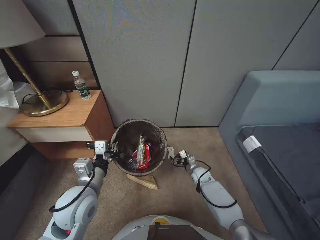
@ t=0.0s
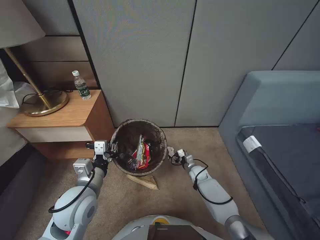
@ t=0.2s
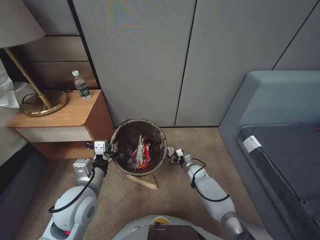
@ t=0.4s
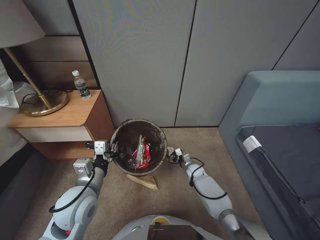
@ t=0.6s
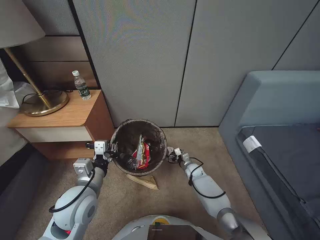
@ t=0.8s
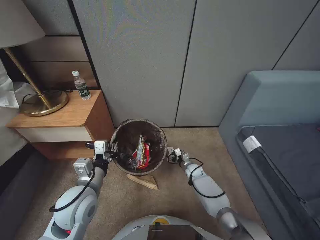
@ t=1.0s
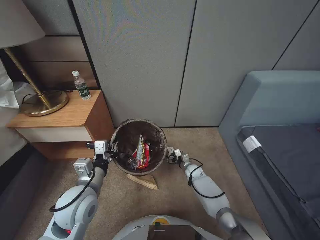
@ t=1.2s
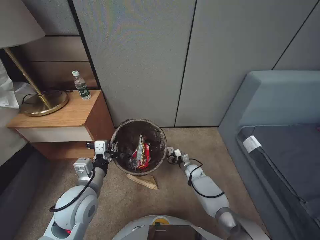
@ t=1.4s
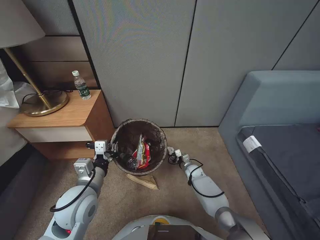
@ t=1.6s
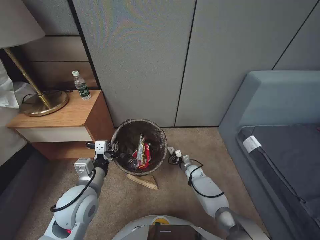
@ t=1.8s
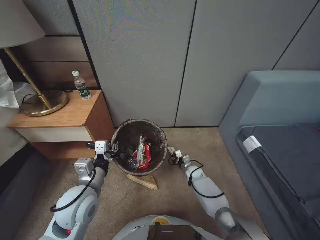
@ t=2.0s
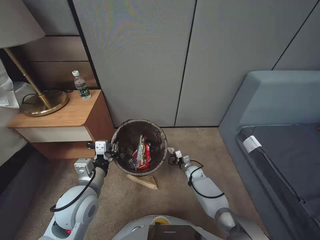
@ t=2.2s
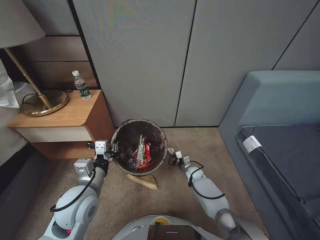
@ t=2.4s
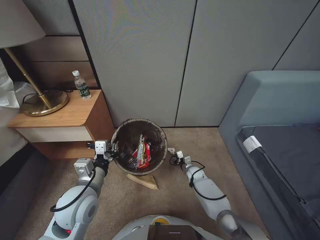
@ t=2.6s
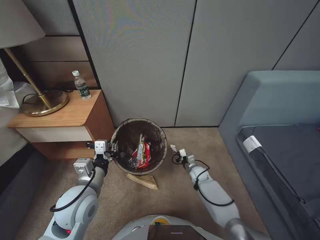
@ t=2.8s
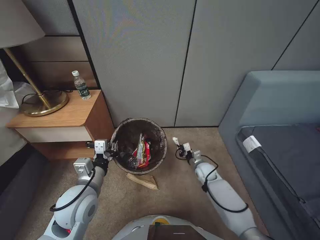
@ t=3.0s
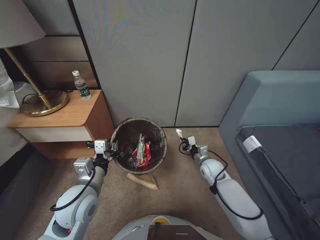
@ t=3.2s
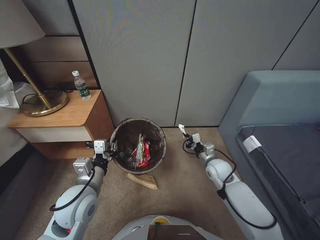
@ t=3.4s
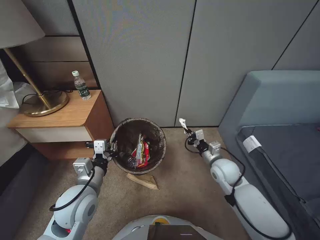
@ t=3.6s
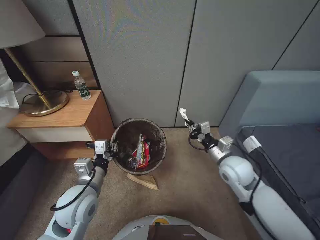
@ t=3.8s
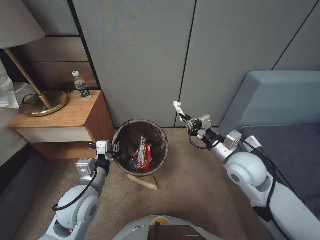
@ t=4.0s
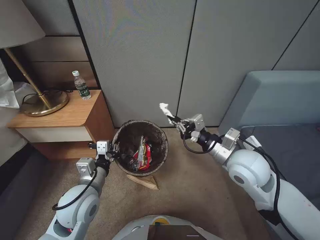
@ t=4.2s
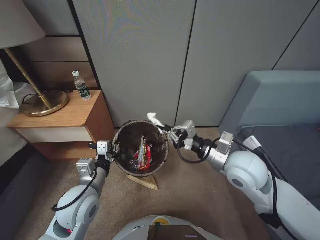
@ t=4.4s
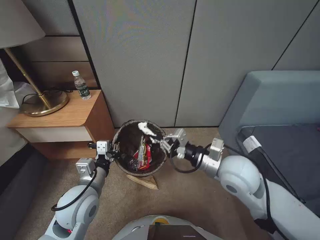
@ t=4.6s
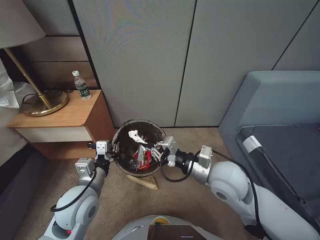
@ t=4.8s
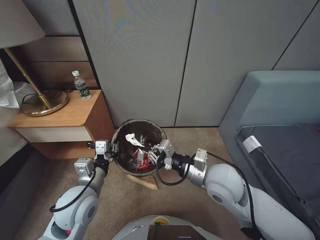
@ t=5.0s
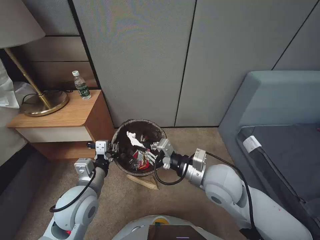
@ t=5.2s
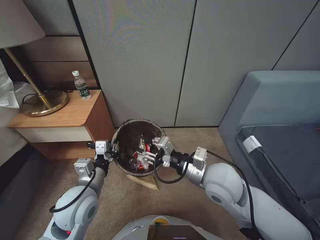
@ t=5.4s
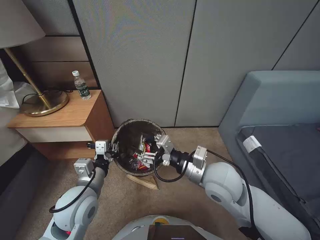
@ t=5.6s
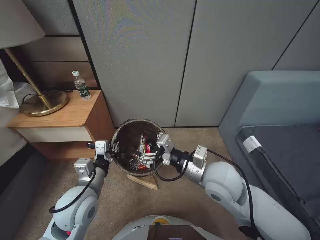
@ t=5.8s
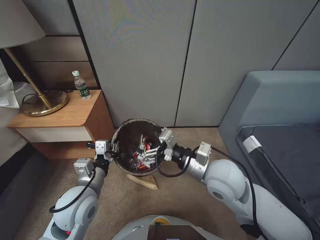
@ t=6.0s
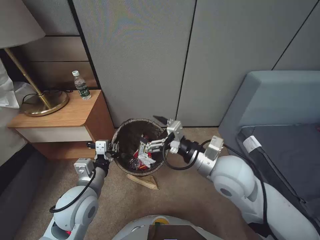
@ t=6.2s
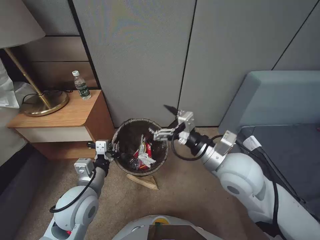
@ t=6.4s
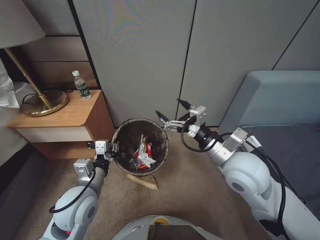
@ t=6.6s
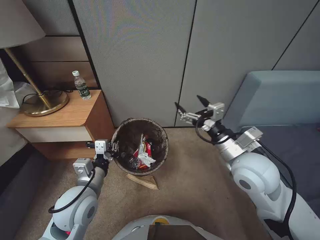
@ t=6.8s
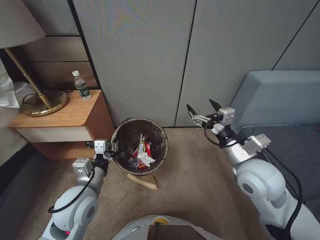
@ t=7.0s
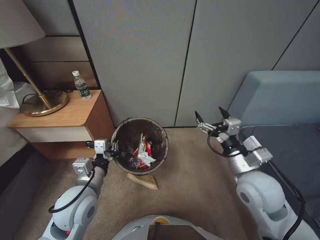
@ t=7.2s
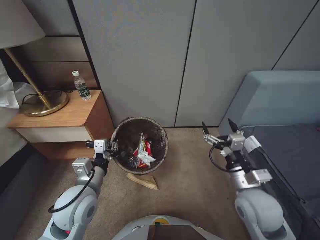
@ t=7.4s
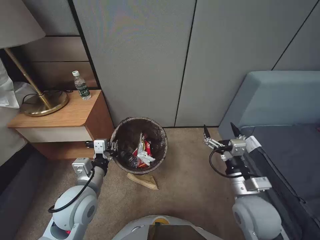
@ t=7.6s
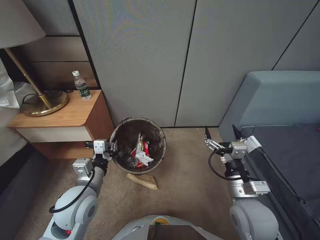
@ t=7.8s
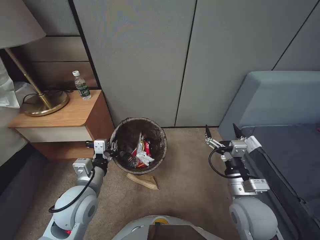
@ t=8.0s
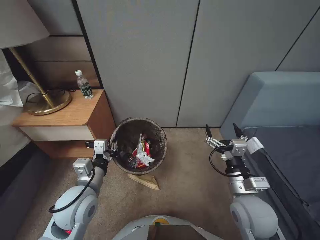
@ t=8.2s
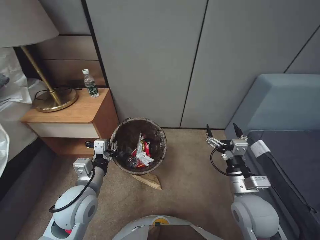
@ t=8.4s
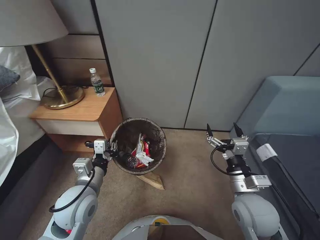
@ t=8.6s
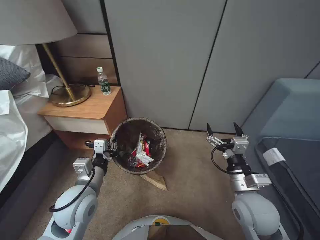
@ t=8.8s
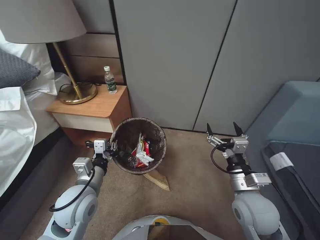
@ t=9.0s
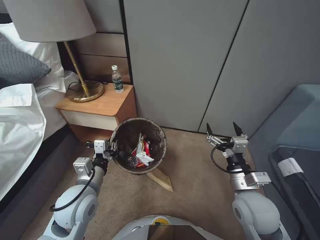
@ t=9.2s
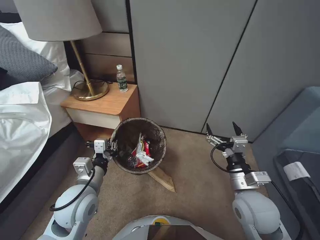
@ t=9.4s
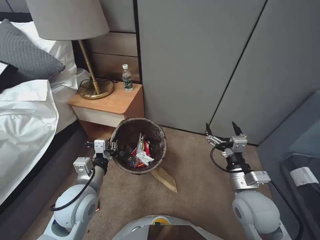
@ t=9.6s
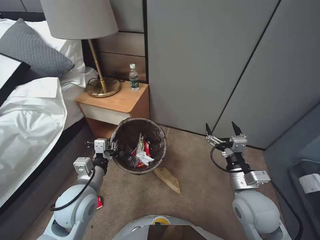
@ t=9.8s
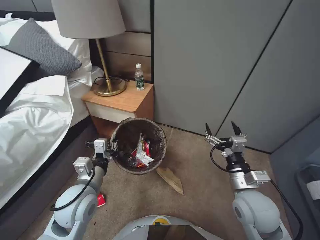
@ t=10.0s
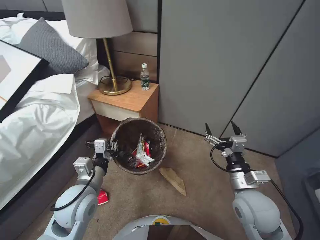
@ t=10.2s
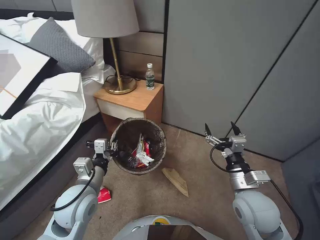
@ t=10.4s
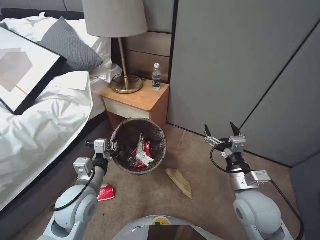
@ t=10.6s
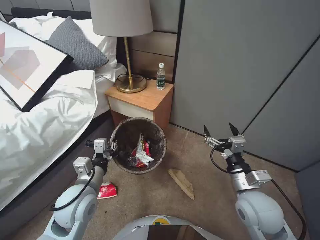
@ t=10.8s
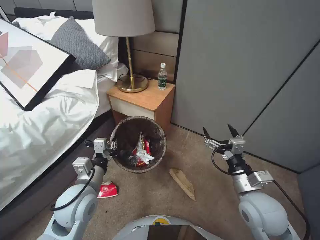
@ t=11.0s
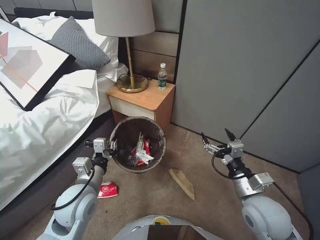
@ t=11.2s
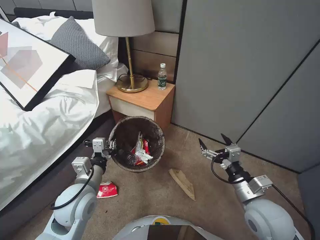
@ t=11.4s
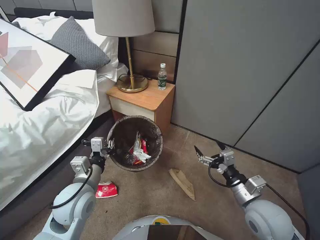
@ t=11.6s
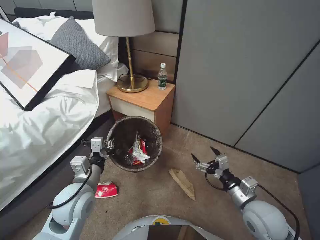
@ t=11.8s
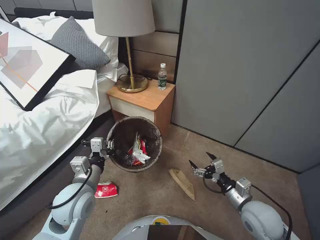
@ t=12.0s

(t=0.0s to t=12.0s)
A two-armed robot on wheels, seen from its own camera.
Task of the whole recording: Pick up the trash bin, then pick up the garbage from the floor and place it into the trash bin.
t=0.0s - t=1.6s: The right gripper shifts by roughly 5 cm, and closes its fingers.
t=1.6s - t=3.0s: The right gripper moves upward, some 10 cm, and closes its fingers.
t=3.0s - t=4.4s: The right gripper travels upward by some 30 cm.
t=4.4s - t=6.0s: The right gripper goes some 5 cm to the left, and opens up.
t=6.0s - t=7.6s: The right gripper heads to the right, downward and backward, covering about 15 cm.
t=10.4s - t=12.0s: The right gripper is displaced downward by approximately 5 cm.

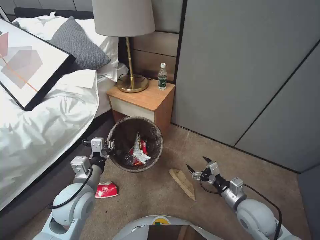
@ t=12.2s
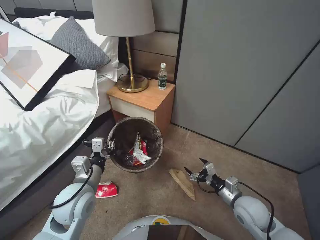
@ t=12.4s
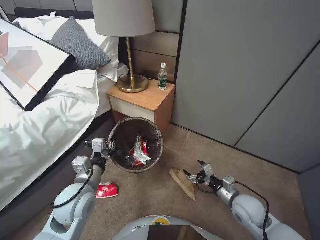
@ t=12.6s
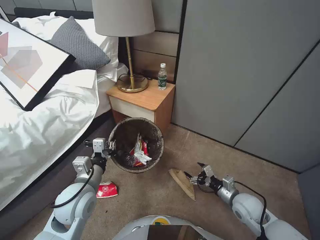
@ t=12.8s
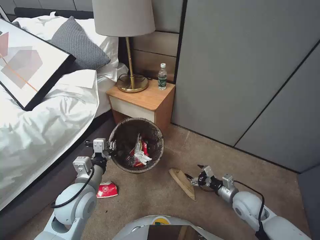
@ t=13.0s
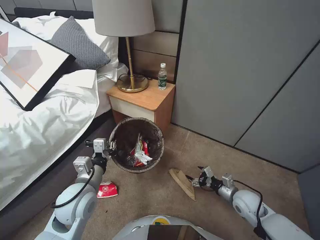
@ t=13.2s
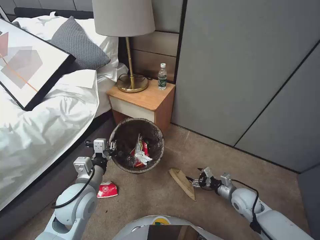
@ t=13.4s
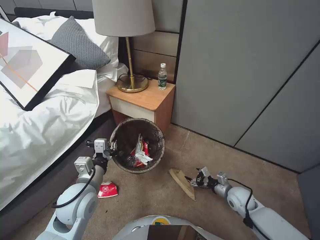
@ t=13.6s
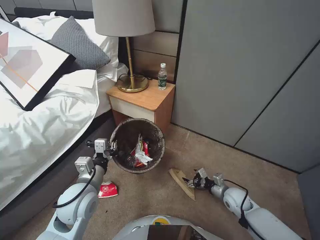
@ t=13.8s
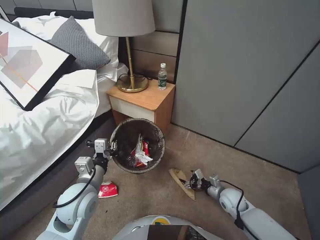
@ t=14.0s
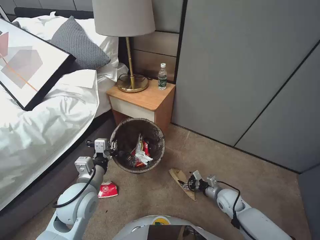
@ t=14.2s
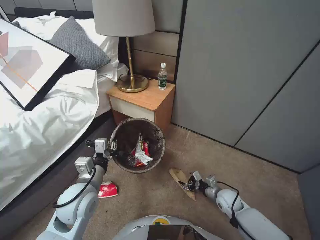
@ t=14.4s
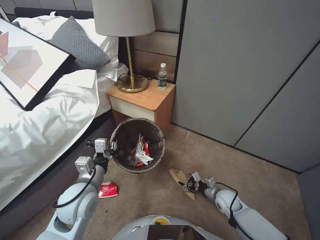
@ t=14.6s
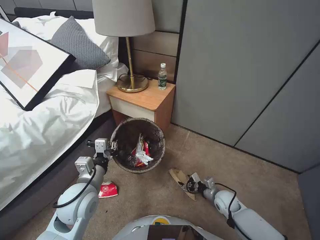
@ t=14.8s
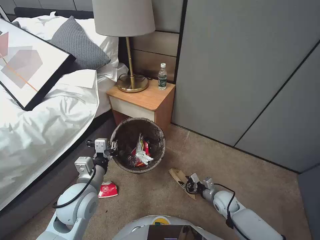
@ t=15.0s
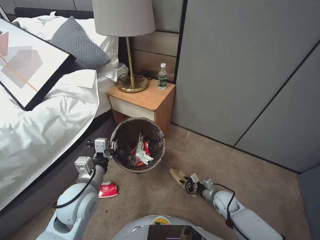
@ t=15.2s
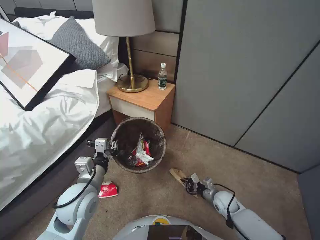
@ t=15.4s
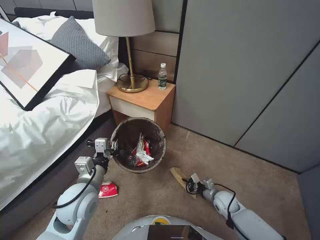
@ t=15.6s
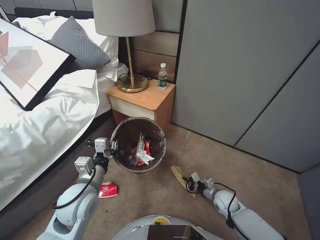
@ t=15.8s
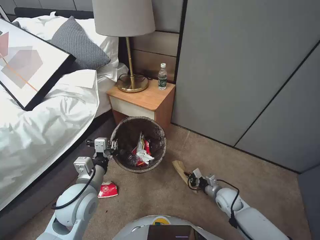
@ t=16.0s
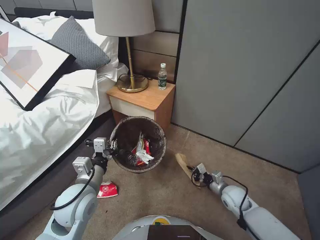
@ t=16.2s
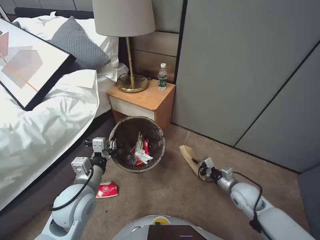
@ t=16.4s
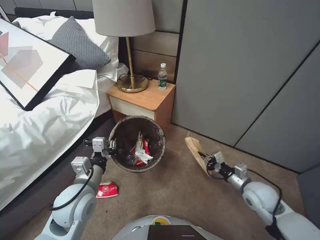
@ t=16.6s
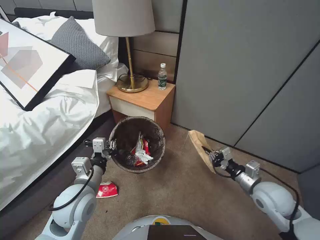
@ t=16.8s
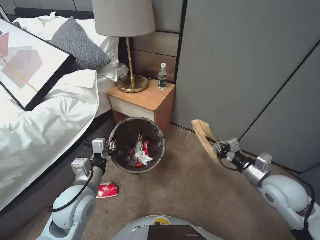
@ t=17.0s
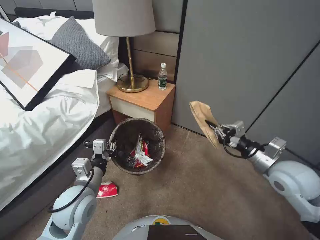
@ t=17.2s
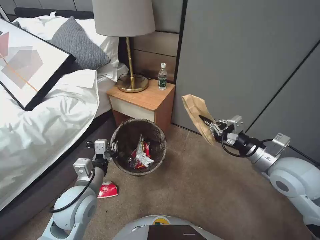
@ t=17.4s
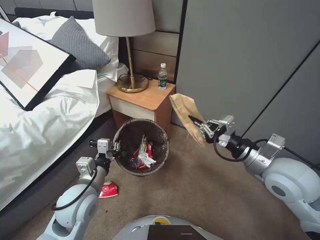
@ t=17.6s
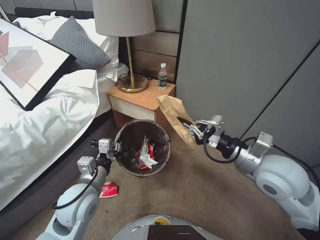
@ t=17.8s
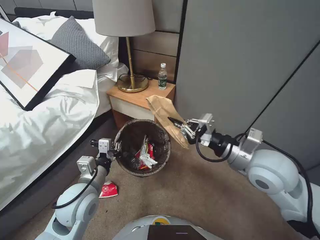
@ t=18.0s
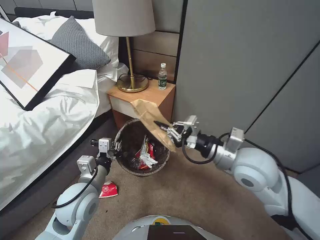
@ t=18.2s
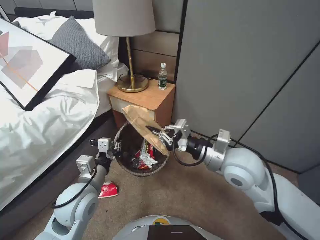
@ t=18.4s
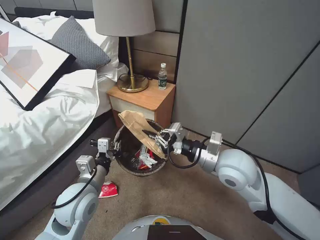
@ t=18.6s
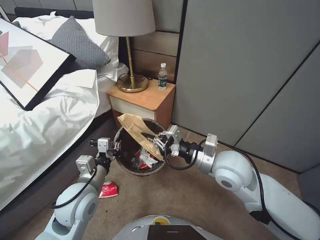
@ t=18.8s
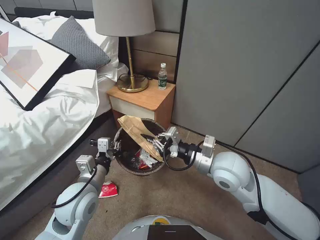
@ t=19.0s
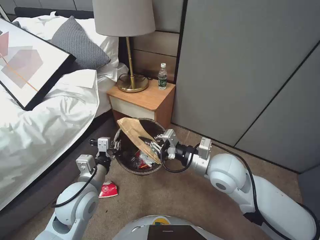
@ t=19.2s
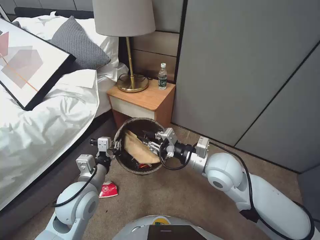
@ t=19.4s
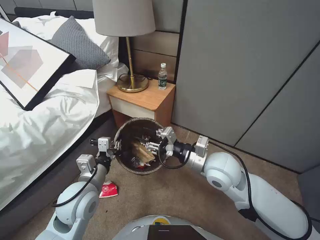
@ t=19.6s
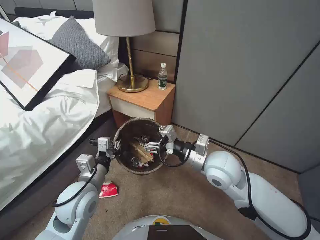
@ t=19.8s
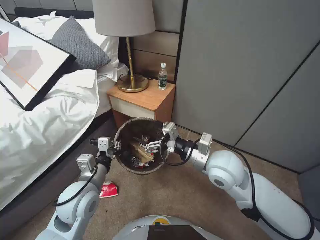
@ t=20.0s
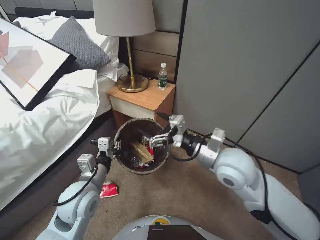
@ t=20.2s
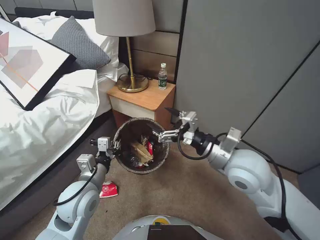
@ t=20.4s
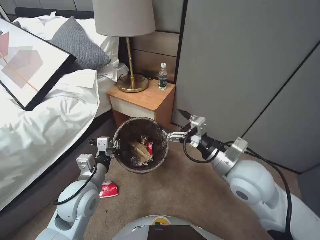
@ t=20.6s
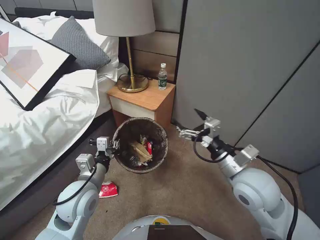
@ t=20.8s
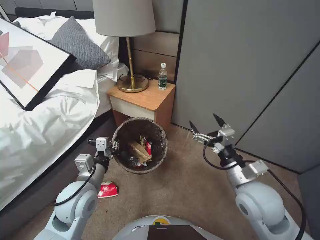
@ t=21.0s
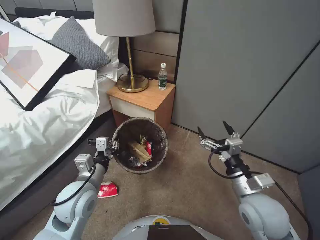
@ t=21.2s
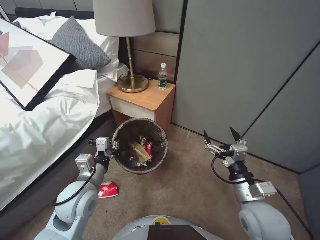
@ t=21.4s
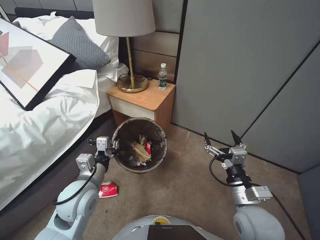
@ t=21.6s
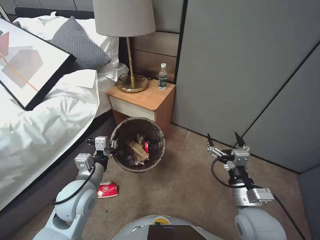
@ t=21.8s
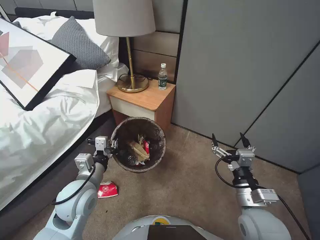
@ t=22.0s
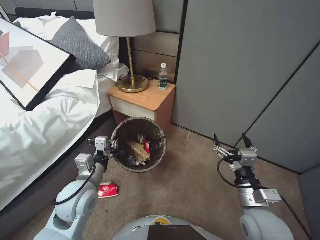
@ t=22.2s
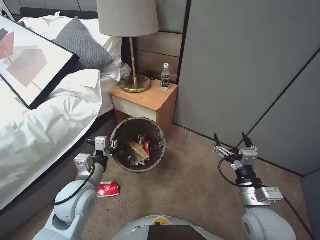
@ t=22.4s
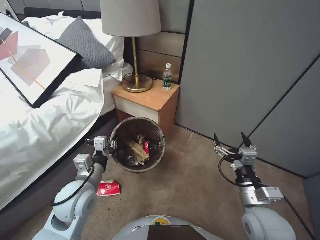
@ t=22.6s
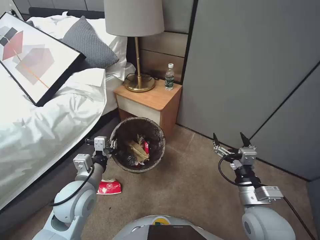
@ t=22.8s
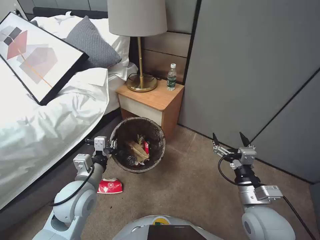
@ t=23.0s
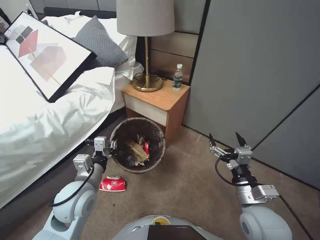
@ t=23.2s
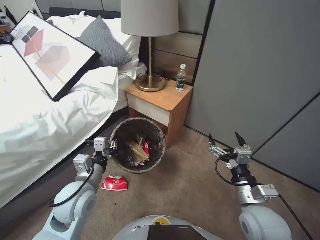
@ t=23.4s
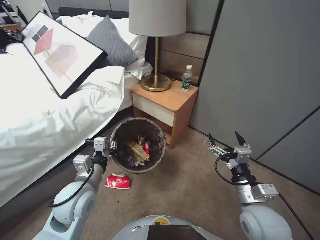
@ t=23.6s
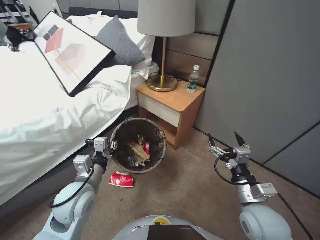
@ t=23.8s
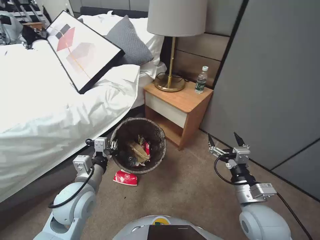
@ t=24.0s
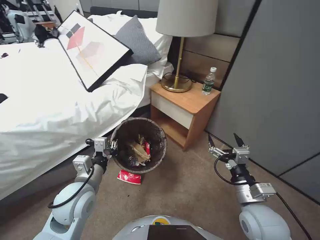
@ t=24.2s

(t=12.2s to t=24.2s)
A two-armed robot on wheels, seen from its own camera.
Task of the whole recording: Pick up the trash bin, then pick up the garbage from the floor and place it into the trash bin.
t=12.2s - t=13.8s: The right gripper goes about 15 cm downward and forward.
t=13.8s - t=15.2s: The right gripper ends up roughly 5 cm from where it was, and closes.
t=15.2s - t=16.6s: The right gripper is displaced upward by approximately 15 cm, and closes up.
t=16.6s - t=18.2s: The right gripper shifts about 25 cm upward and to the left.
t=18.2s - t=19.8s: The right gripper goes roughly 10 cm to the left and downward, and opens up.
t=19.8s - t=21.2s: The right gripper moves backward and to the right, roughly 15 cm.
